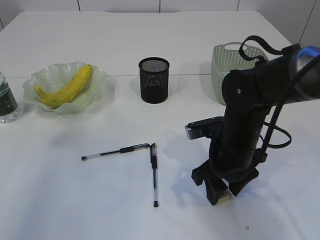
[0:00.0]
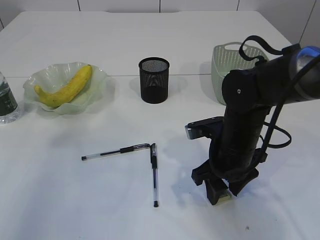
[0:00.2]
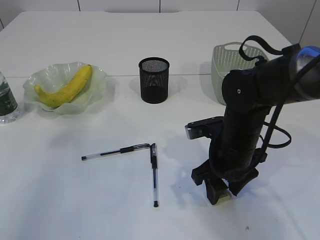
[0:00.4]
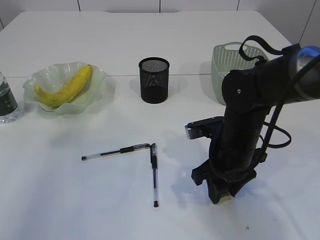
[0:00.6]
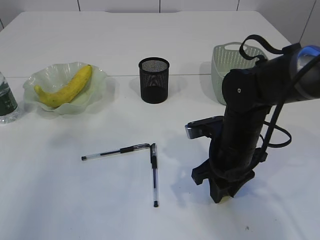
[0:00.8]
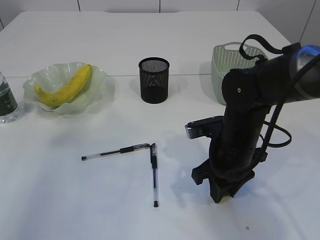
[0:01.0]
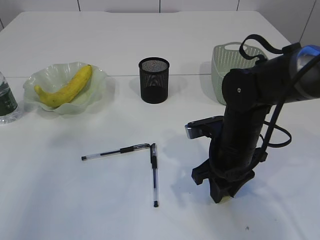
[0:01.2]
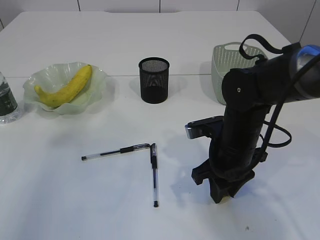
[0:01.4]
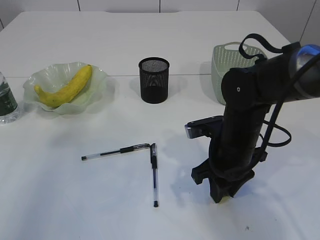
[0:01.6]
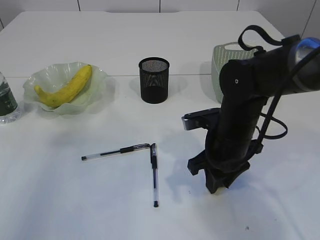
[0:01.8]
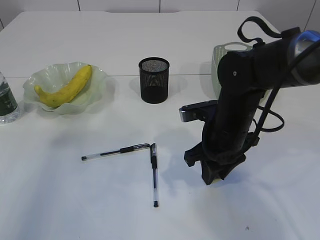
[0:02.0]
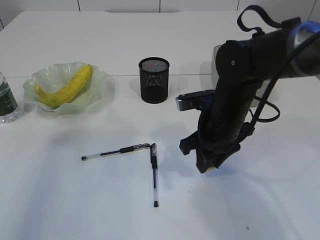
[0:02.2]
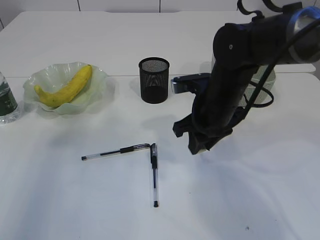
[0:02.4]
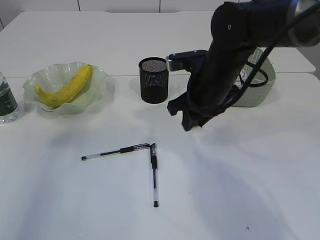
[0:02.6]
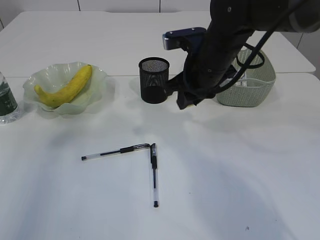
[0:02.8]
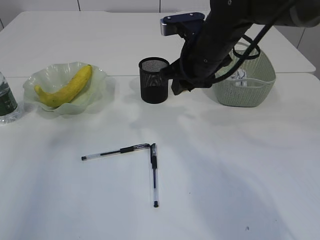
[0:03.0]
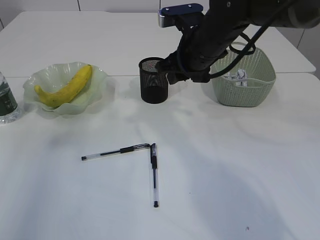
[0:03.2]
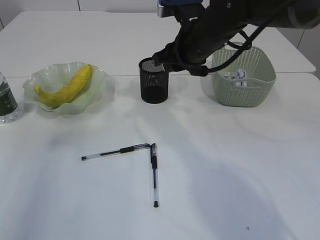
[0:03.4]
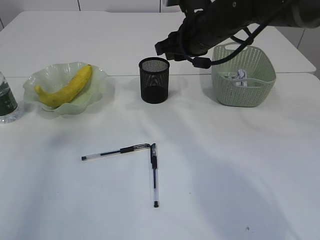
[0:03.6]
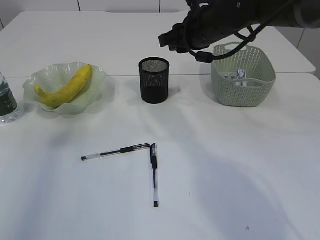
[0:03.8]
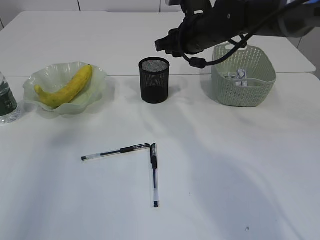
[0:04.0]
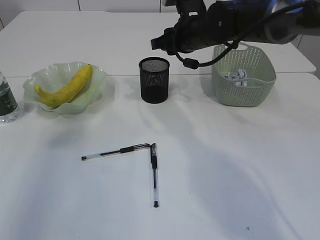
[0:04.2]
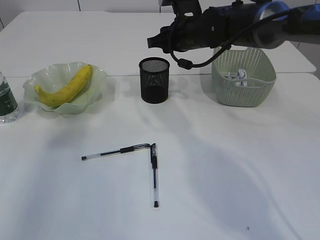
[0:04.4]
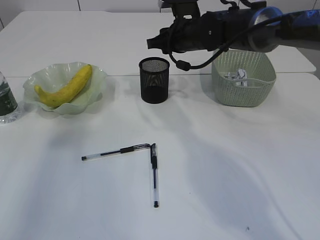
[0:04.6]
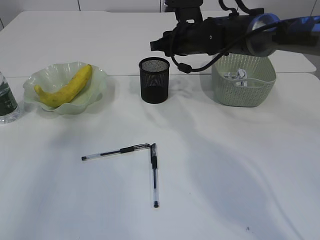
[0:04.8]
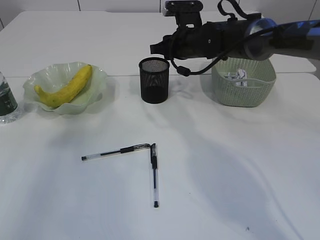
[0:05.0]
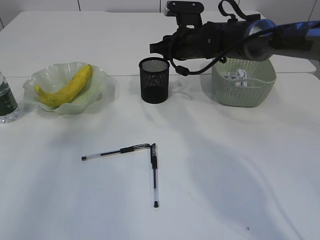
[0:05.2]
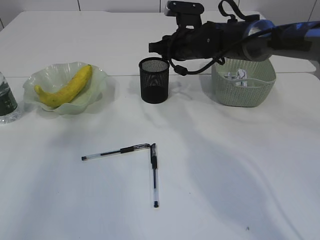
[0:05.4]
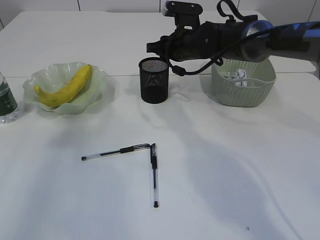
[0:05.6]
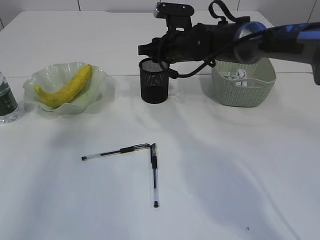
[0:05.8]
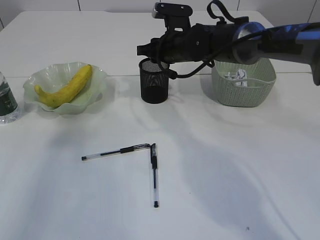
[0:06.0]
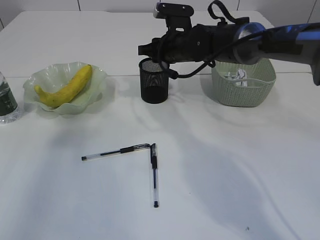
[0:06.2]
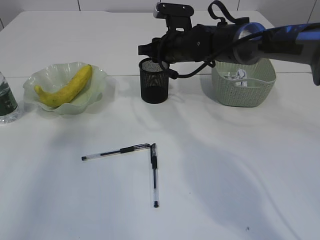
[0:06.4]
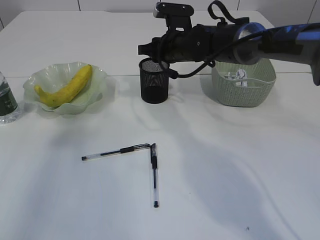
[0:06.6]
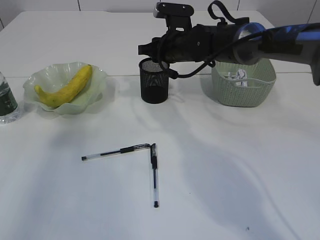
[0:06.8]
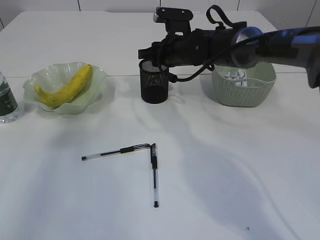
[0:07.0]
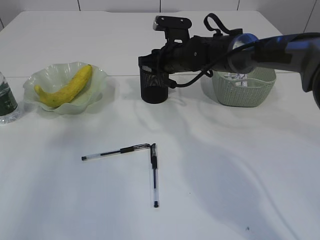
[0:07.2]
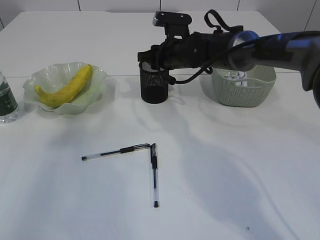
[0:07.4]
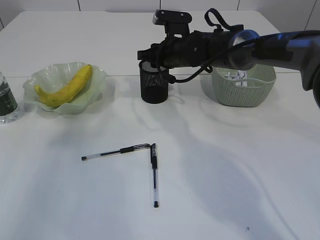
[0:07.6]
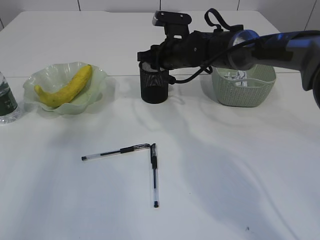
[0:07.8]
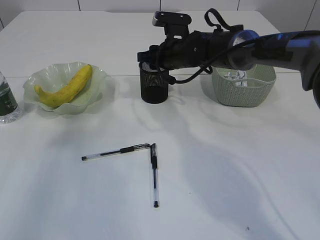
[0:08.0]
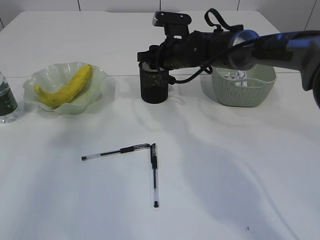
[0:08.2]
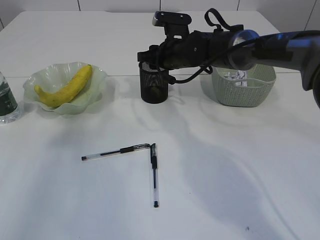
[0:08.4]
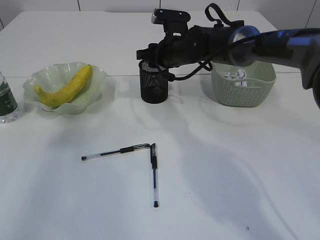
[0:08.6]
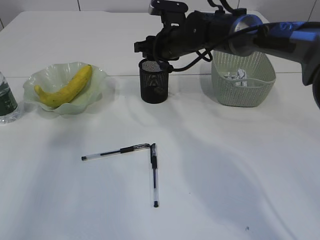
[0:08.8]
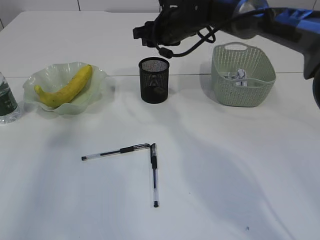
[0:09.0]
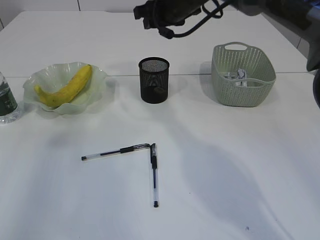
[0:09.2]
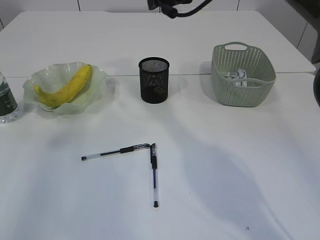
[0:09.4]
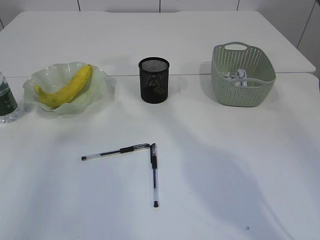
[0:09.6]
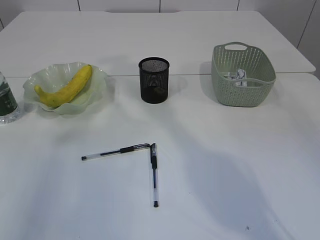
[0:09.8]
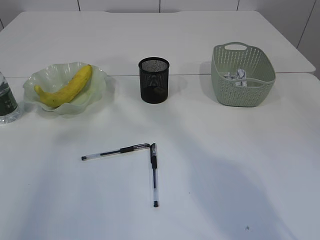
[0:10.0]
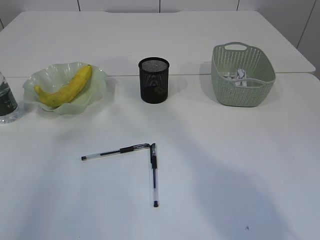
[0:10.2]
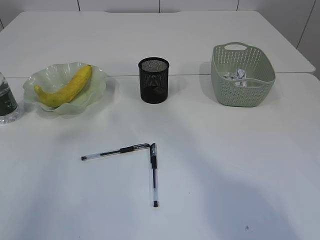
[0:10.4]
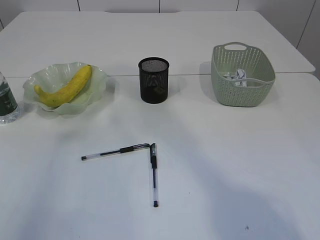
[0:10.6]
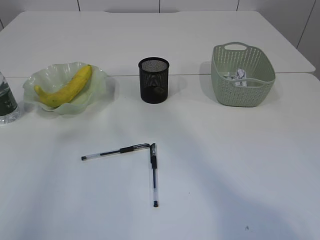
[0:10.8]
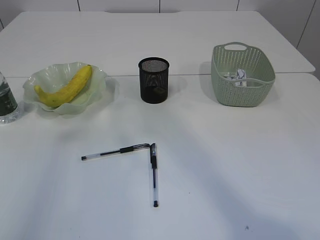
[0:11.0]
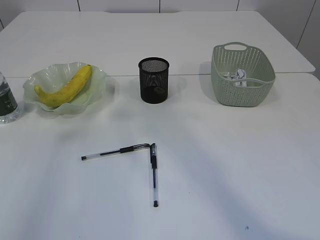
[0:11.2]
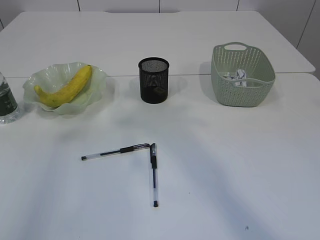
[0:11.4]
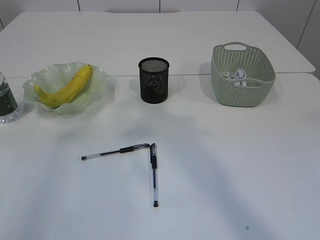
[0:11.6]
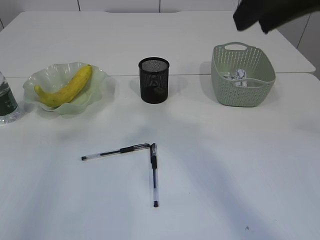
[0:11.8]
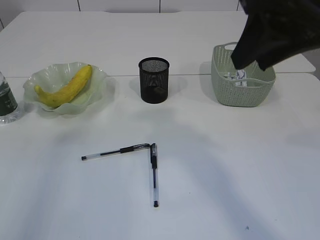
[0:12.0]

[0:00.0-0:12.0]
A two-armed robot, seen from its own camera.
Step, 0:00.0 to 0:02.4: Pick up the eraser.
Step, 0:02.6 to 0:08.8: Place the eraser into the pen holder.
0:00.0 to 0:01.6: The two grippers keep their place.
0:01.6 to 0:03.0: The right gripper heads upward and forward, covering roughly 15 cm.
0:03.0 to 0:04.4: The right gripper shifts some 10 cm forward.
0:04.4 to 0:06.0: The grippers stay close to where they were, moving slightly.
0:06.0 to 0:07.6: The grippers move only a little.
0:07.6 to 0:09.0: The right gripper shifts roughly 5 cm upward.
0:09.0 to 0:10.4: The right gripper heads upward and backward, covering approximately 35 cm.
0:10.4 to 0:12.0: The right gripper is displaced downward by some 15 cm.

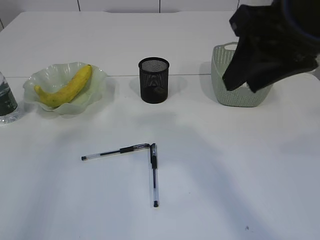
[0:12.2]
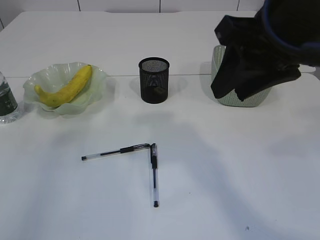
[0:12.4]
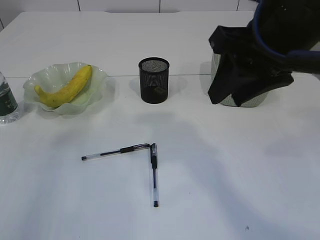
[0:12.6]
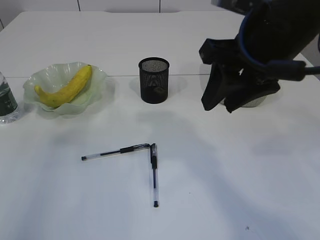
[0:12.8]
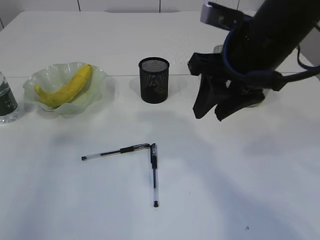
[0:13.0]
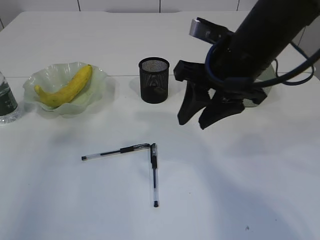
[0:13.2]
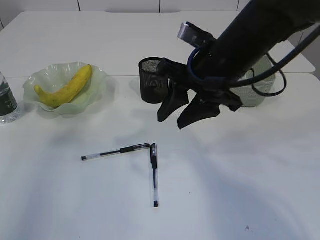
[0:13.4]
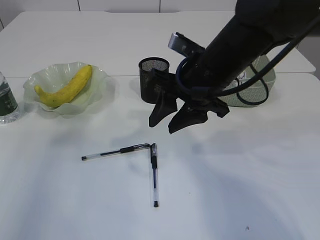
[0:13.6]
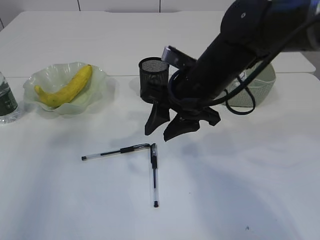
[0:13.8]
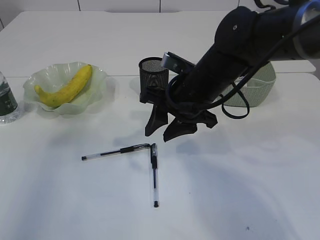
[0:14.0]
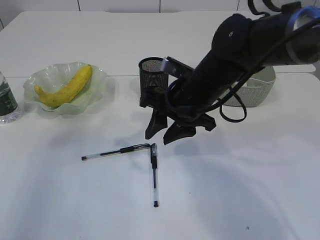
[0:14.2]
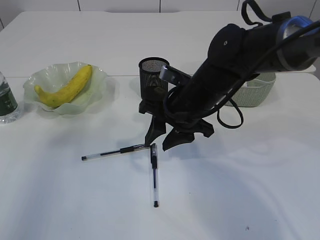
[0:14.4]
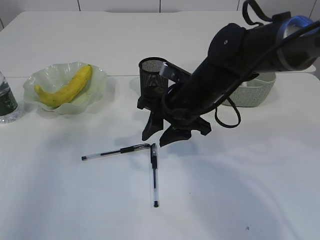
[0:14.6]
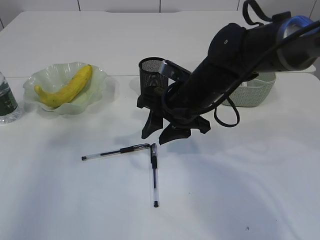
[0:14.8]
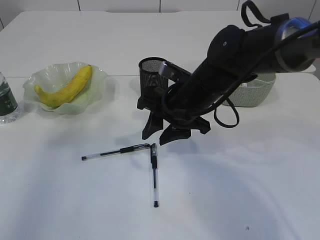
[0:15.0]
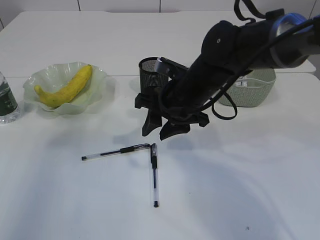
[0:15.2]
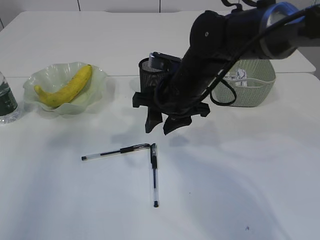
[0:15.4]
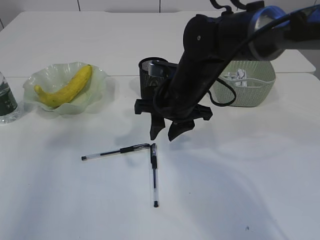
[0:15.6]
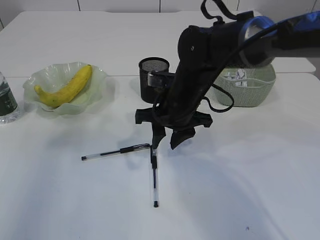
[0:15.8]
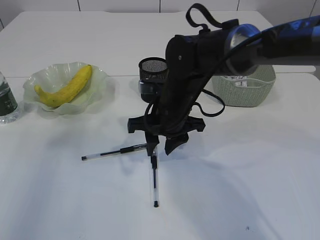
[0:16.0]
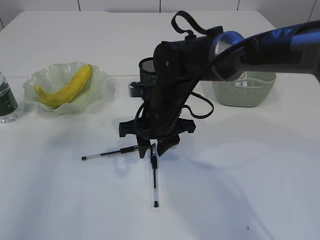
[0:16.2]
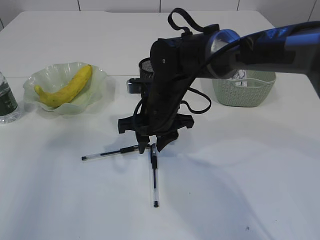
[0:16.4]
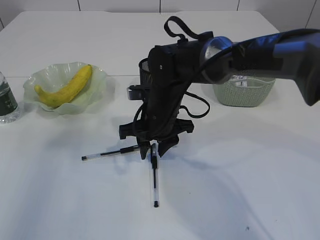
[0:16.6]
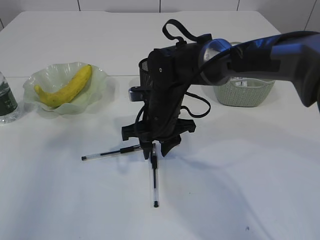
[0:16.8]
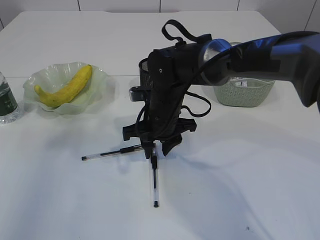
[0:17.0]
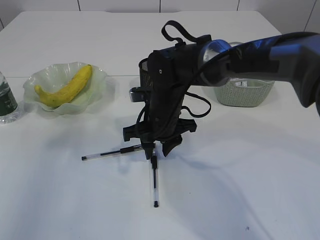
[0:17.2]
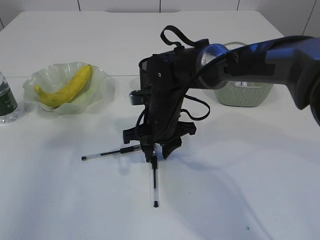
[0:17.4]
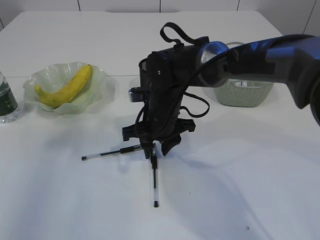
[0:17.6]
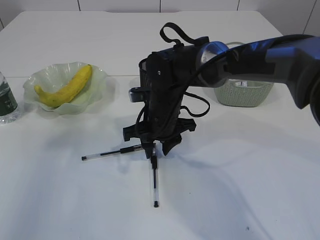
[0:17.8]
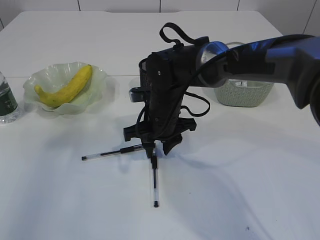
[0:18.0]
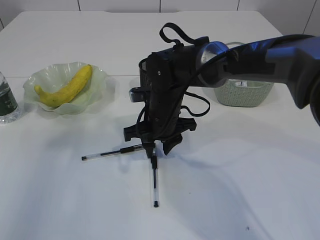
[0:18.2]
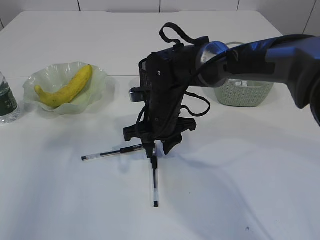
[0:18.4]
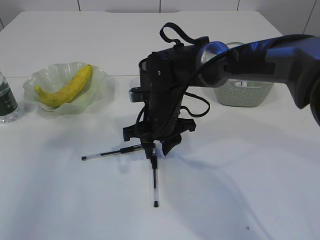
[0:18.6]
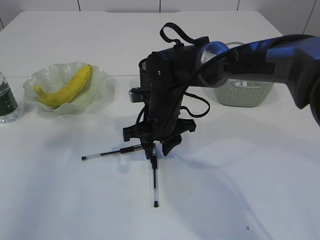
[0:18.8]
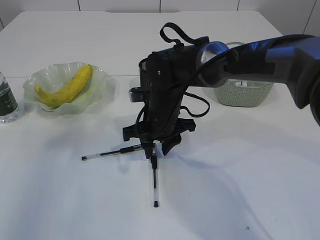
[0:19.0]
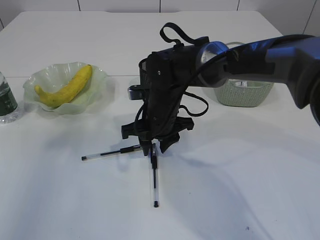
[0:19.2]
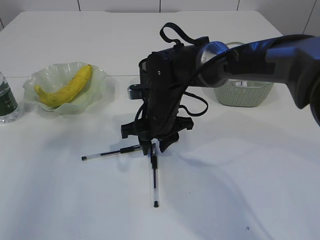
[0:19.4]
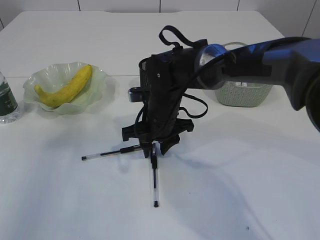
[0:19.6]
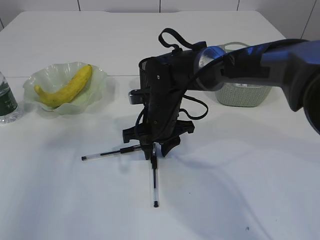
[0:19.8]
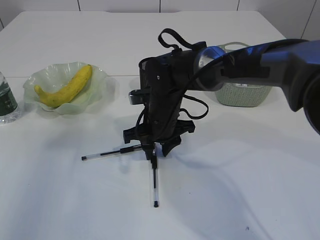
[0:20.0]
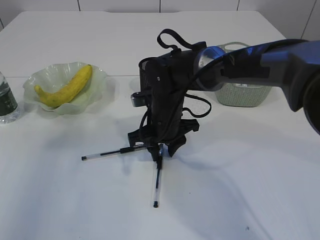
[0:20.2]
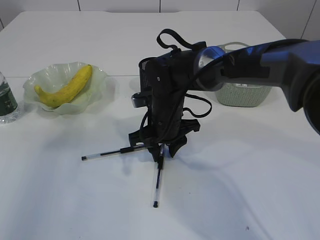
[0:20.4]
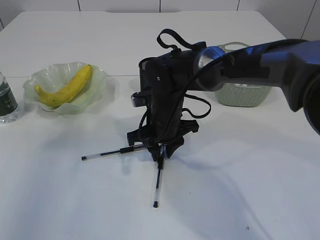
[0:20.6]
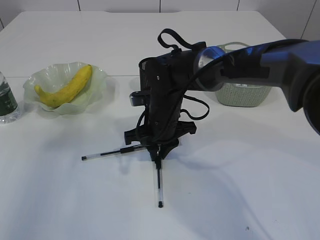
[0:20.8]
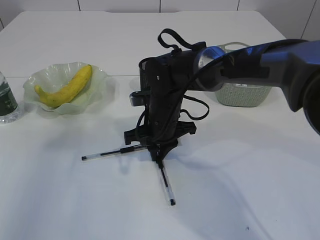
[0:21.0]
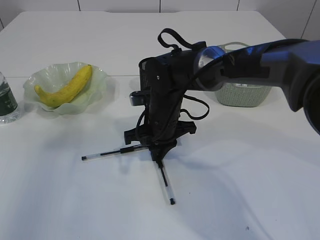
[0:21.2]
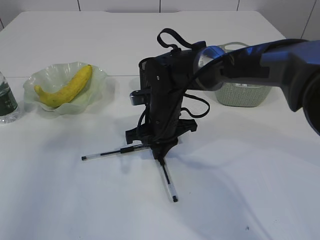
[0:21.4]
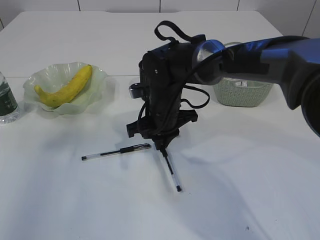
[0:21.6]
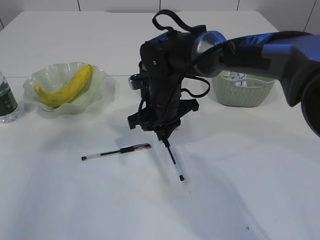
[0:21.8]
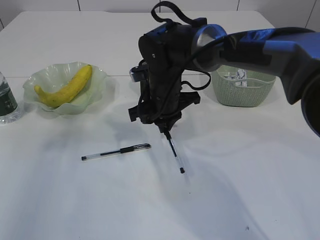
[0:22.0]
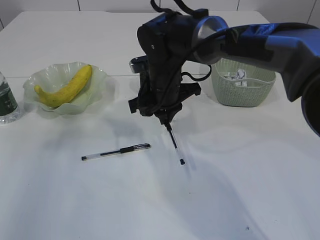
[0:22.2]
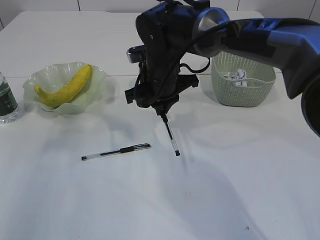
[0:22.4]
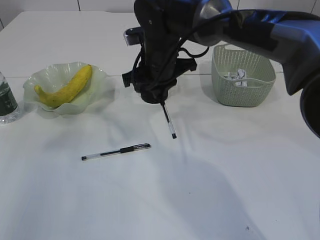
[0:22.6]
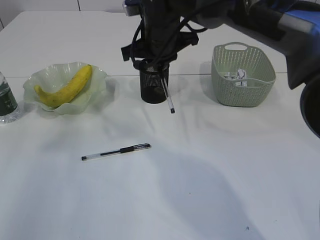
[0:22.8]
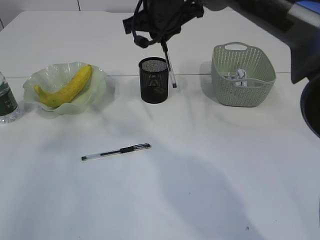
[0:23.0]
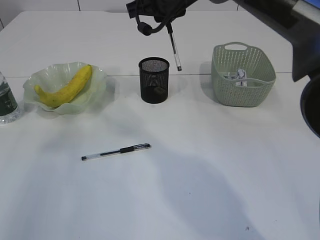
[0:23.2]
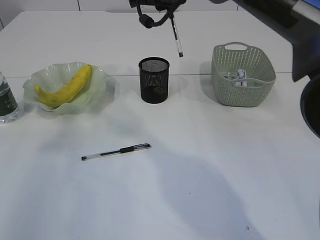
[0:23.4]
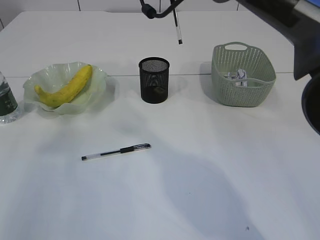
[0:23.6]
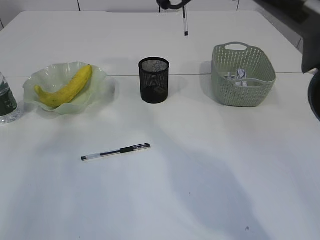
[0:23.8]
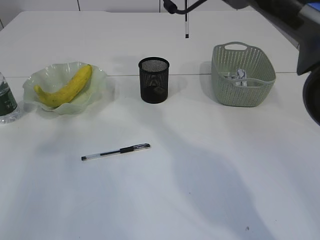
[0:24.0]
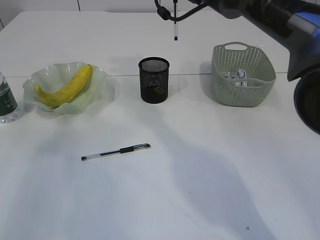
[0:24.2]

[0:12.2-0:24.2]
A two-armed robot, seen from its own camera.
Step, 0:12.2 to 0:22.0: Pick up the pen with right arm.
0:12.2 to 0:13.8: The right gripper shifts some 20 cm downward, forward and to the left.
0:13.8 to 0:15.2: The right gripper changes place by approximately 5 cm.
0:15.2 to 0:16.6: The right gripper ends up about 5 cm from where it was.
0:16.6 to 0:18.2: The grippers move only a little.
0:18.2 to 0:19.8: The two grippers keep their place.
0:19.8 to 0:21.2: The right gripper closes.
0:21.2 to 0:22.6: The right gripper goes roughly 10 cm upward.
0:22.6 to 0:24.2: The right gripper heads upward, forward and to the right, covering some 15 cm.
